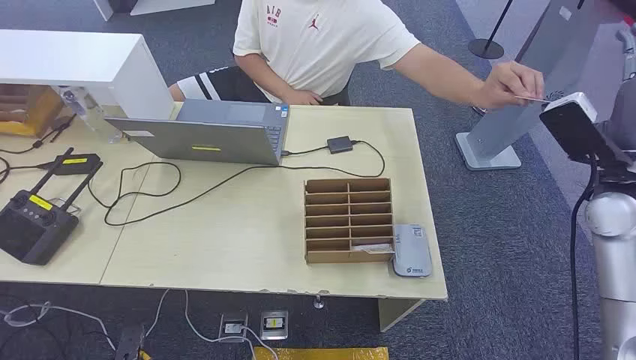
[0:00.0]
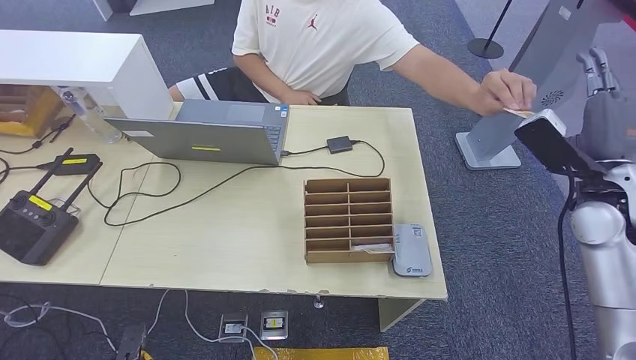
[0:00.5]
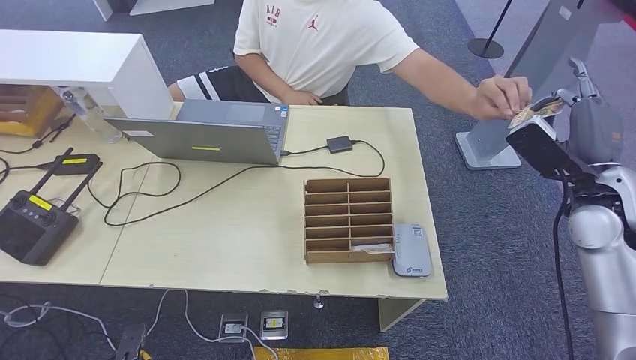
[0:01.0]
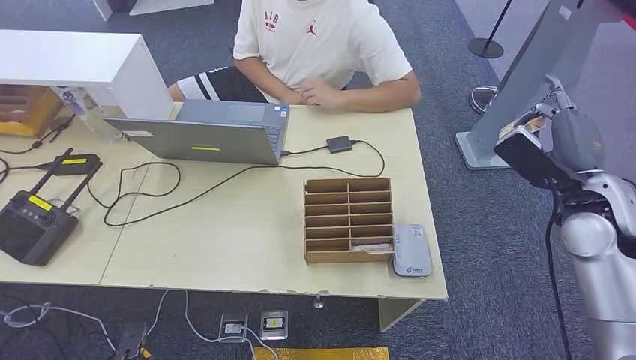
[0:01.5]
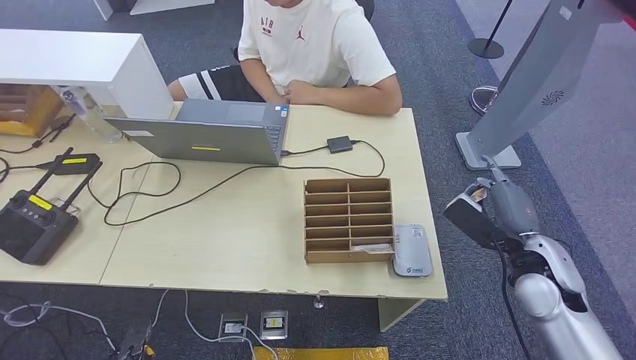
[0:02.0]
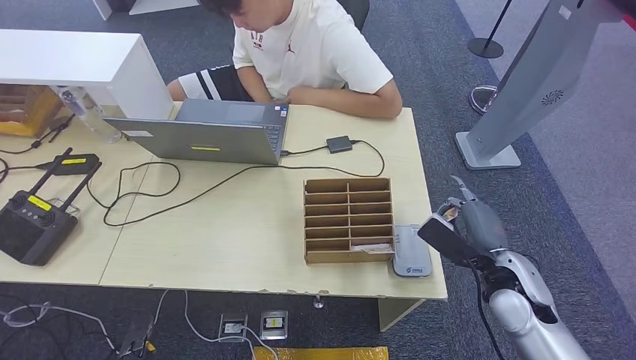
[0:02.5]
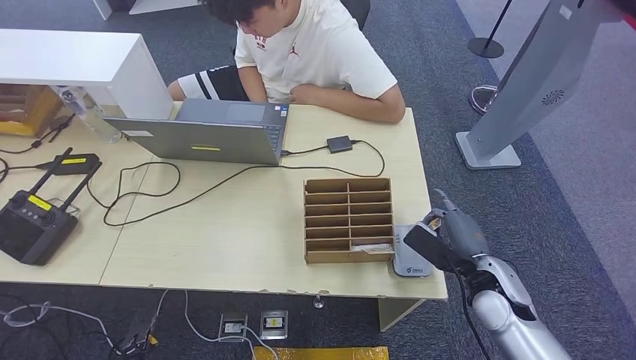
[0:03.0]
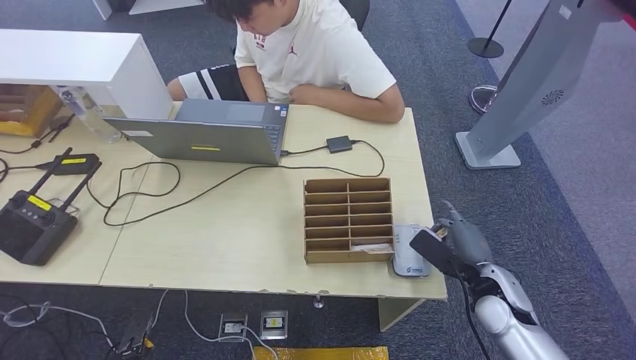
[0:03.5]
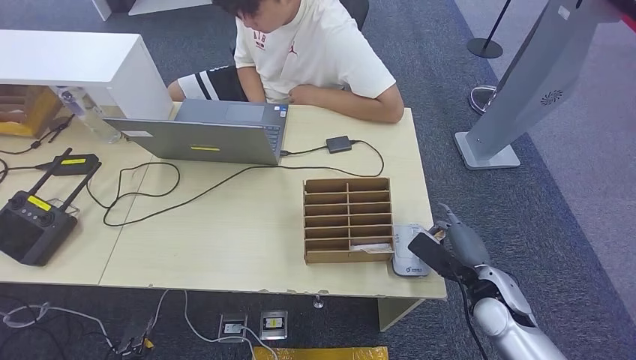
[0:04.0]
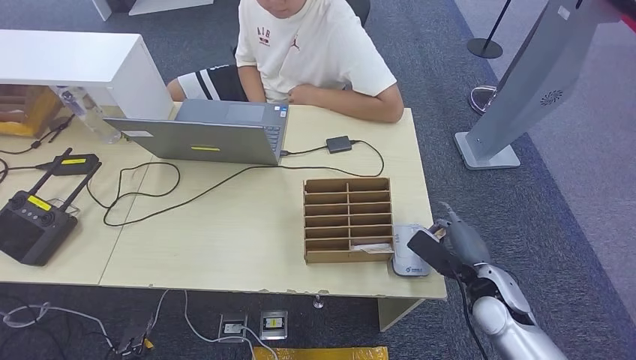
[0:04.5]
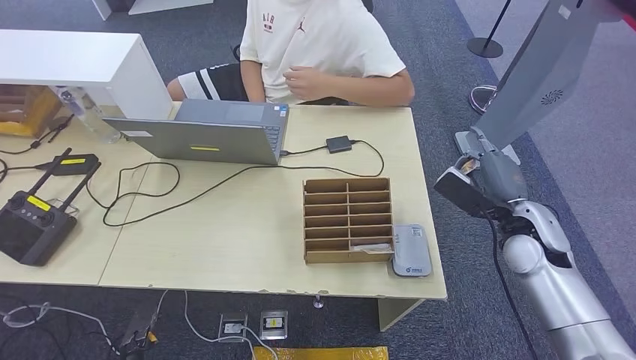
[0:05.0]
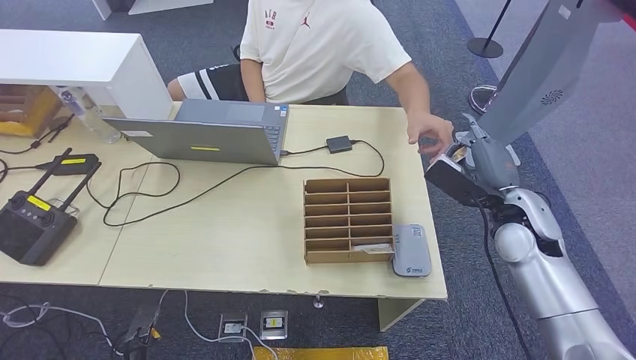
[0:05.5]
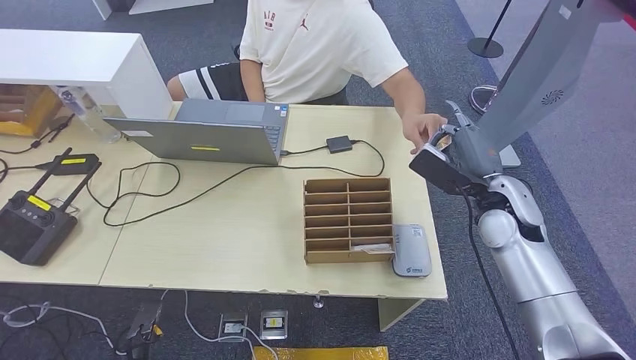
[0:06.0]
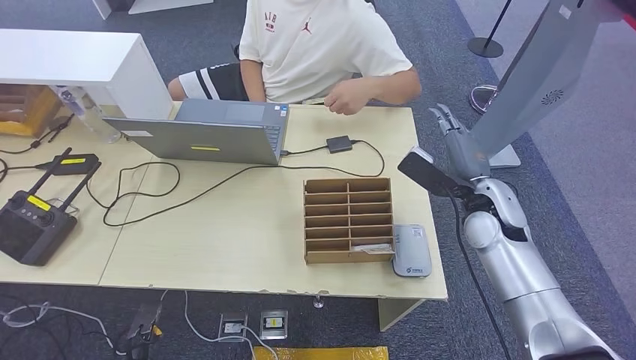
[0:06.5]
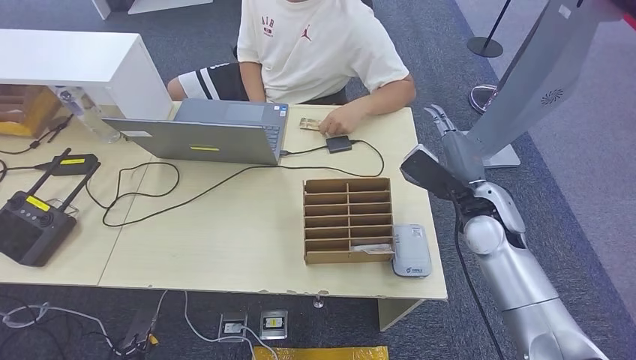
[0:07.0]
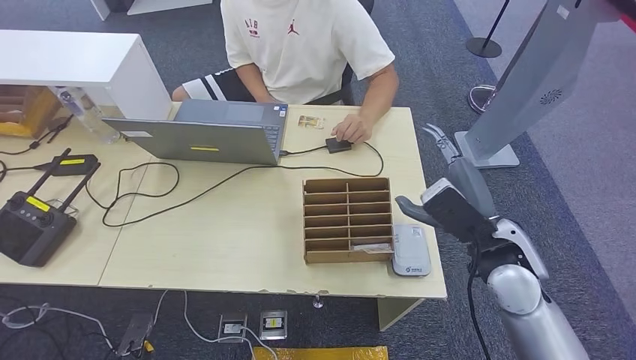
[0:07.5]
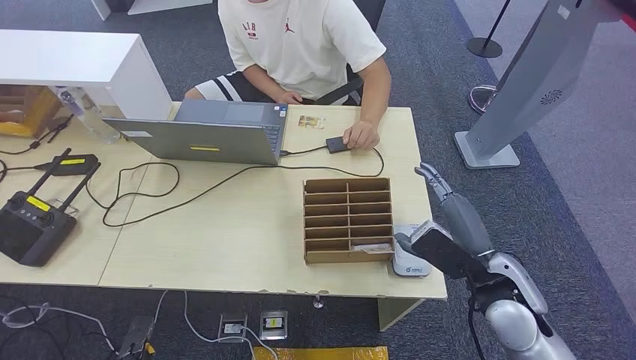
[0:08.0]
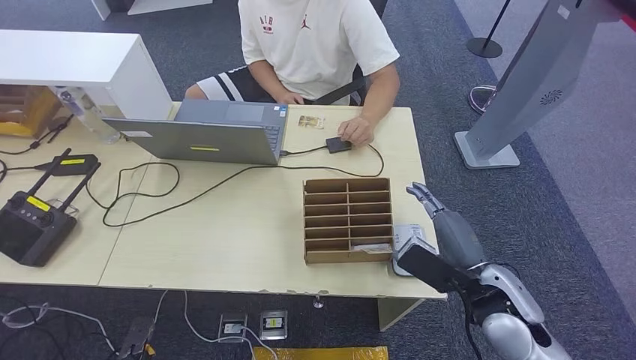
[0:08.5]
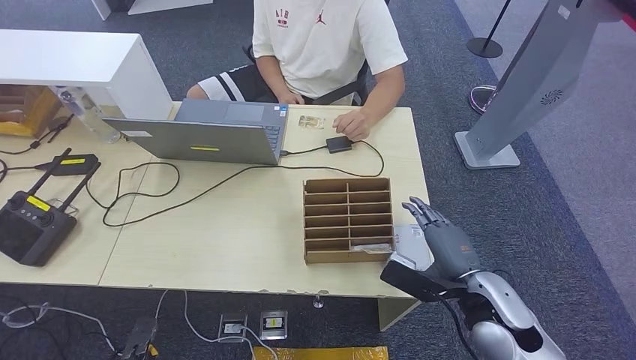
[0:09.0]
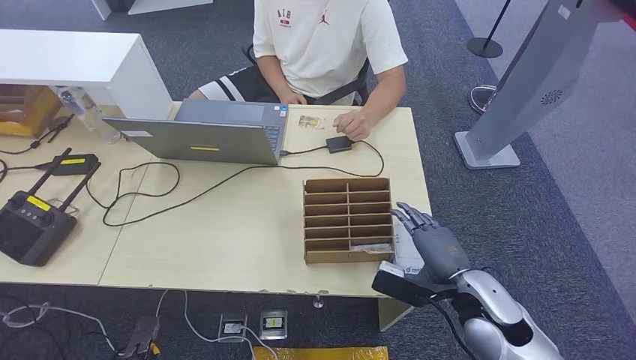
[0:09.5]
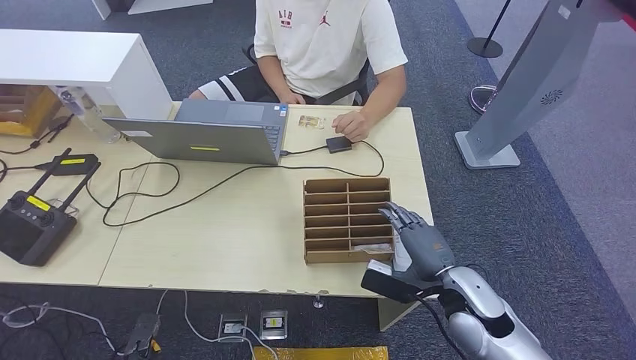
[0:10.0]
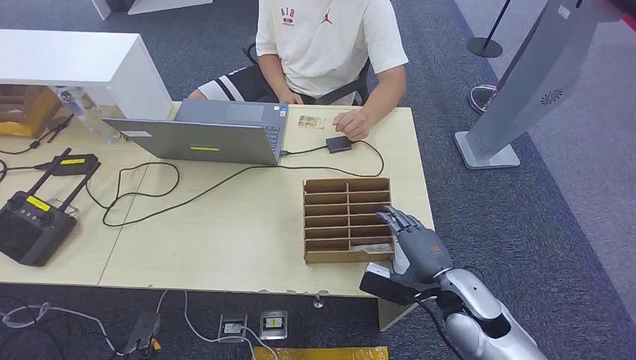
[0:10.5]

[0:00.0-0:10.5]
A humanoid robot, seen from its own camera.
Step, 0:00.0 to 0:01.0: Take the ID card from the person's hand.
Step, 0:01.5 to 0:03.5: Place the ID card on the card reader.
Step, 0:04.0 to 0:07.0: Hand the ID card to the person.
0:02.0 to 0:04.0: The right hand heads downward, covering roughly 10 cm.
0:04.0 to 0:06.5: The right hand heads upward and forward, covering approximately 15 cm.
0:06.5 to 0:08.5: The right hand shifts about 15 cm backward.
0:08.5 to 0:10.5: The right hand is displaced downward by about 5 cm.

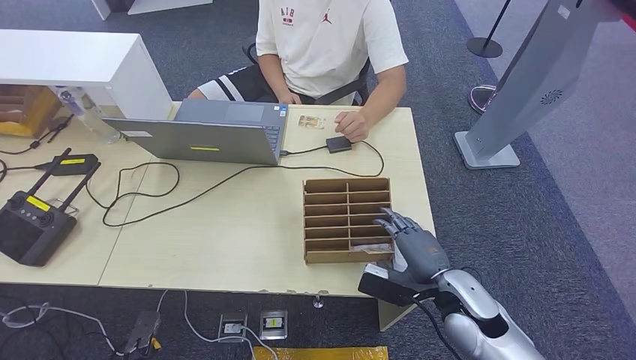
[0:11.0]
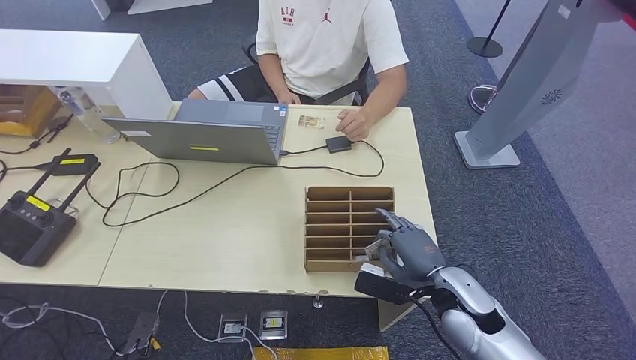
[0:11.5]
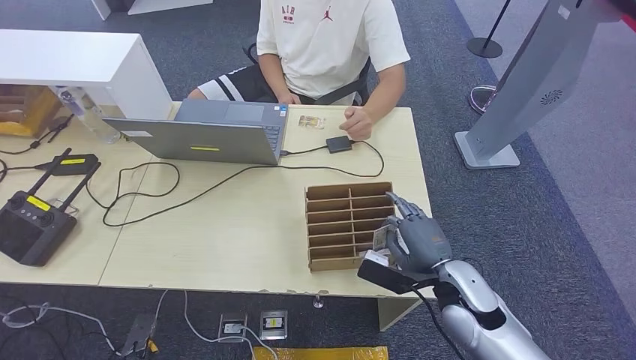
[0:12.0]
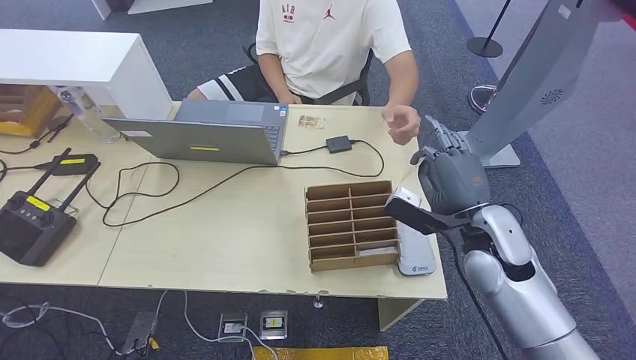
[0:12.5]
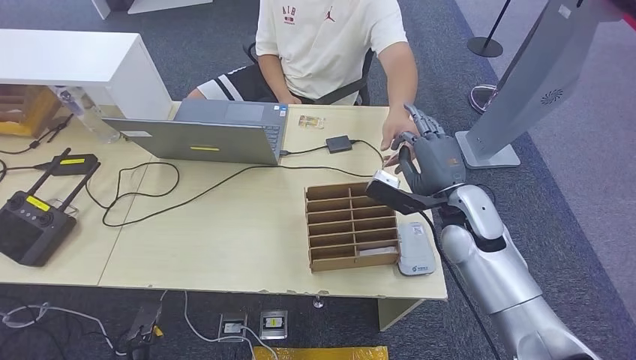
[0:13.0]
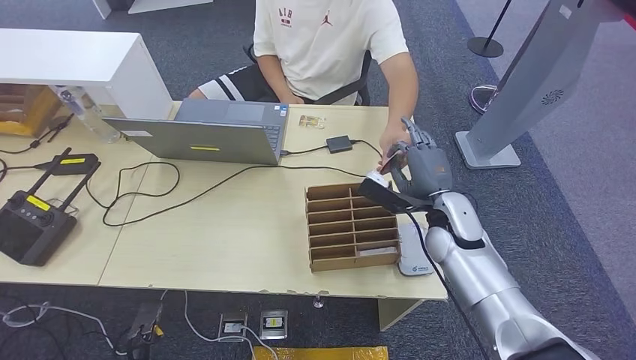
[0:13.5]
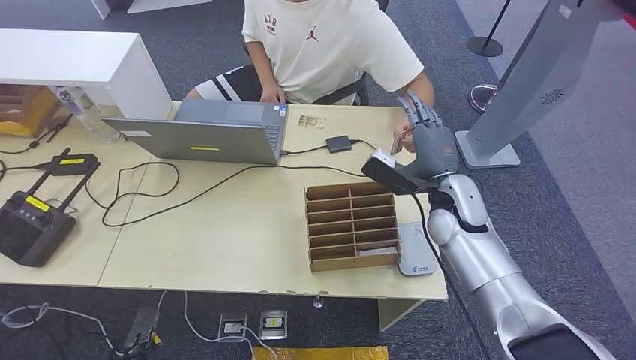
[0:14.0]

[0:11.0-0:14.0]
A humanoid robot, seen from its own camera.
Step, 0:12.5 to 0:14.0: Hand the room key to the person.
0:11.0 to 0:12.5: The right hand shifts roughly 15 cm upward and forward.
0:12.5 to 0:14.0: The right hand heads forward, covering approximately 5 cm.
